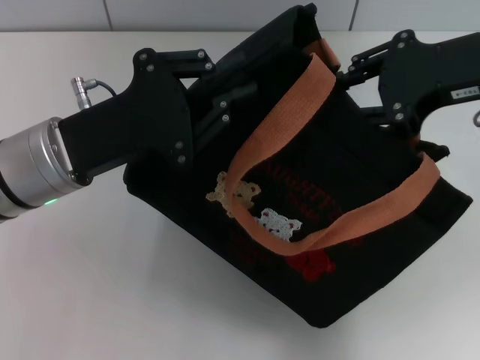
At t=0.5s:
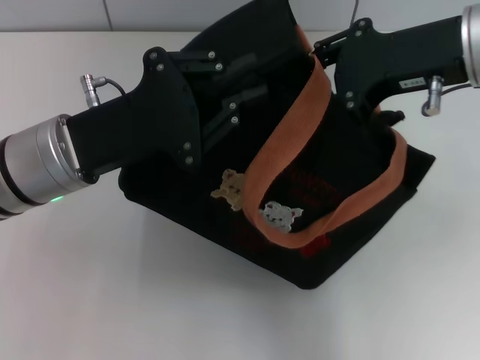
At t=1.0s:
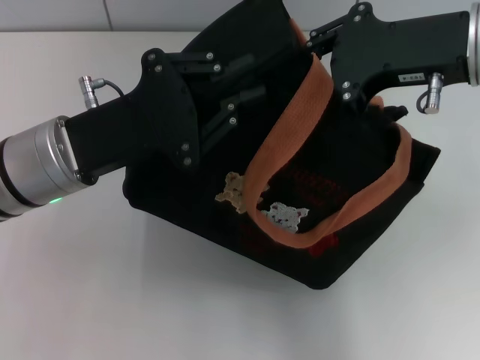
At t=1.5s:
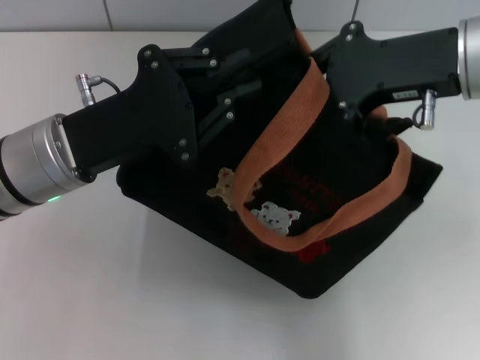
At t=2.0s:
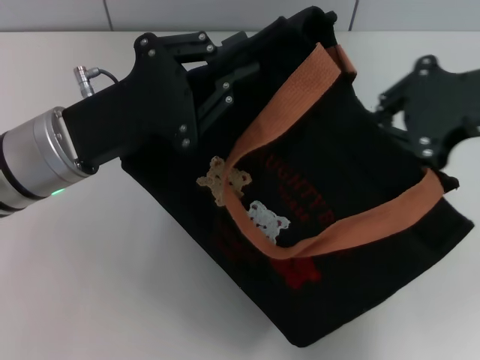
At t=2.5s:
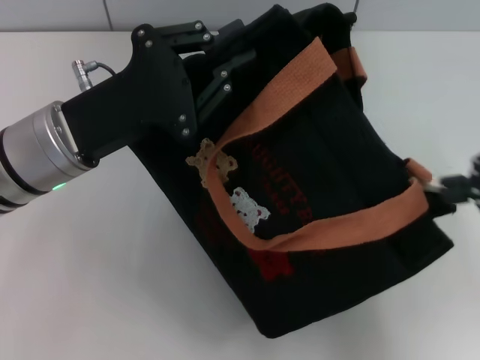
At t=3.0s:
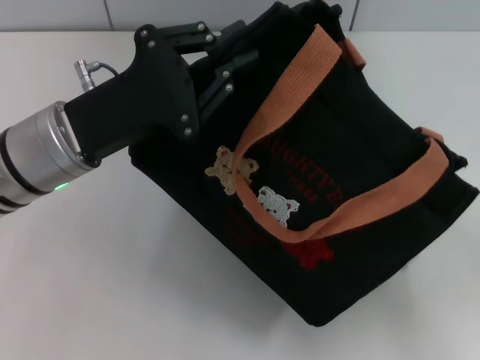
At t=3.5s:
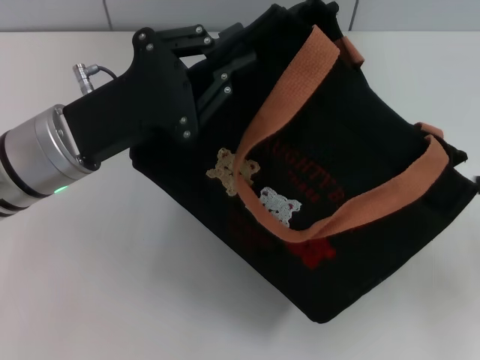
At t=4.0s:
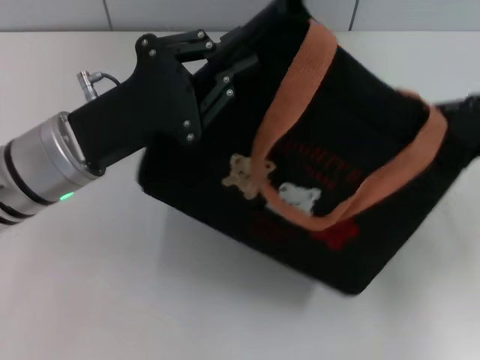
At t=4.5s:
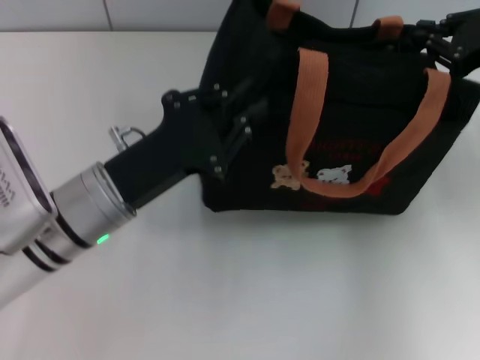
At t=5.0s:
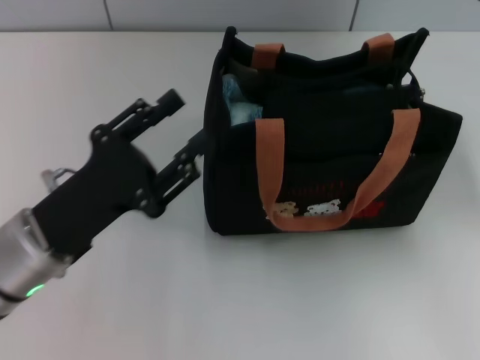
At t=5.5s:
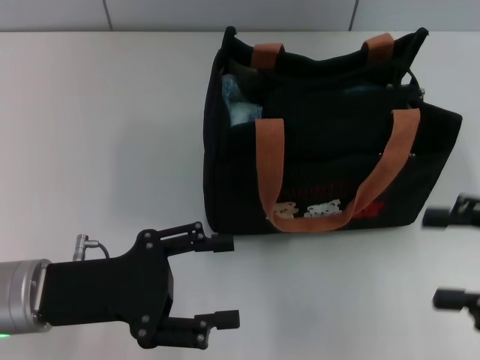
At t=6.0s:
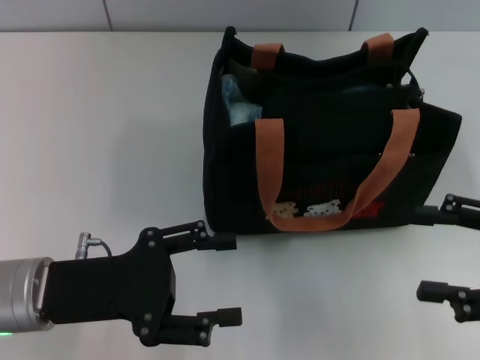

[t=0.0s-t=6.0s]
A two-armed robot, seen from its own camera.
Step, t=0.0s to t=3.0s: Pull open the zipper with your right hand.
Step, t=3.5s to t=5.0s: Grab the bag with your left hand.
t=0.0s to t=2.0s: The right gripper closes up.
t=2.0s to t=4.0s: The right gripper moves downward and to the right, some 10 cm, and opens its fingers.
t=4.0s to t=6.0s: The two grippers go some 10 cm backward. The left gripper opens; the right gripper closes and opens again.

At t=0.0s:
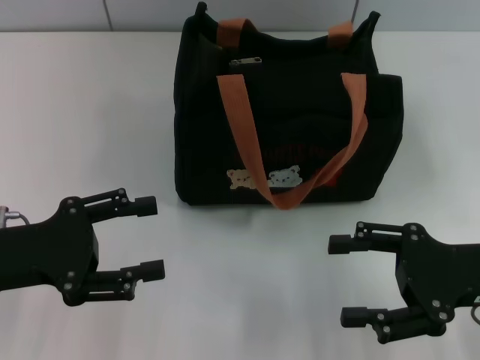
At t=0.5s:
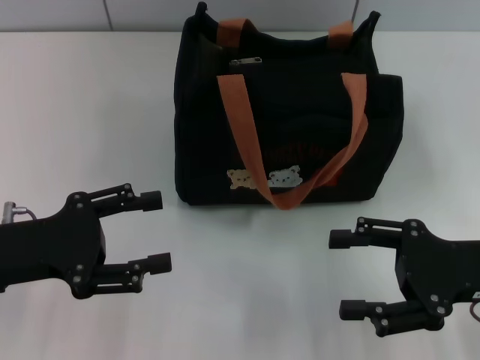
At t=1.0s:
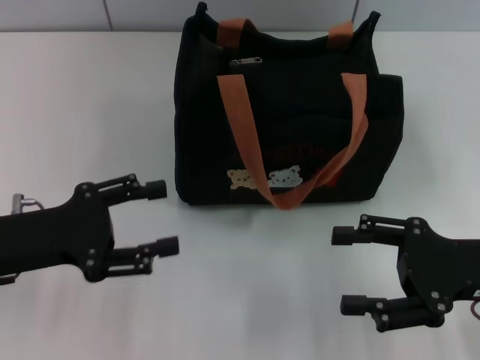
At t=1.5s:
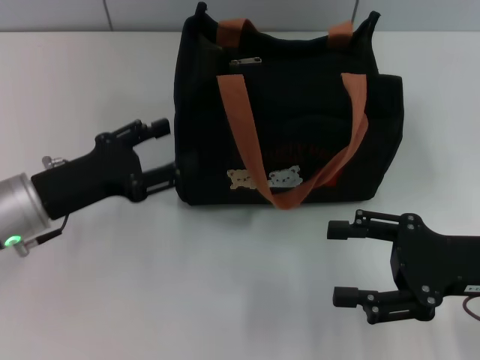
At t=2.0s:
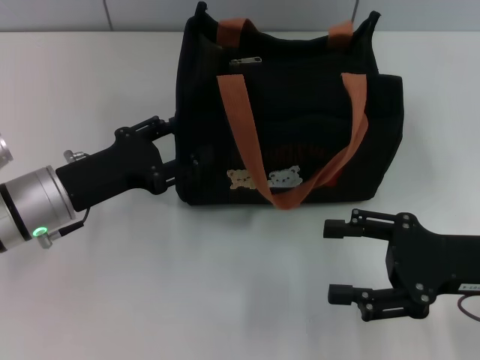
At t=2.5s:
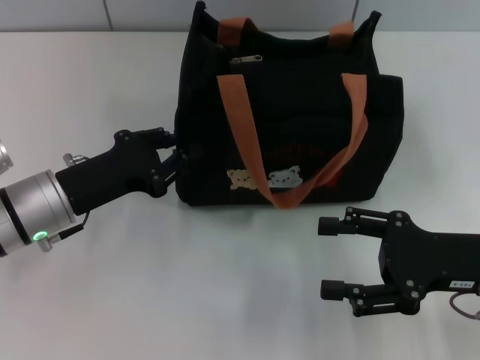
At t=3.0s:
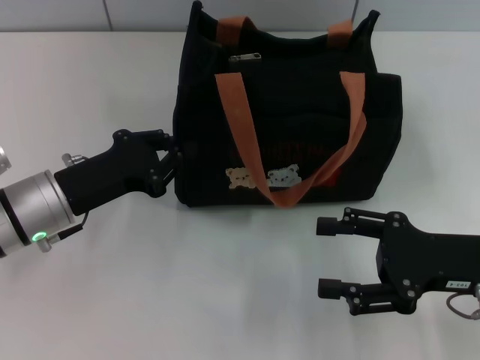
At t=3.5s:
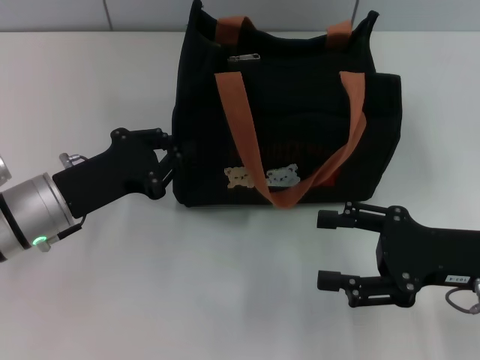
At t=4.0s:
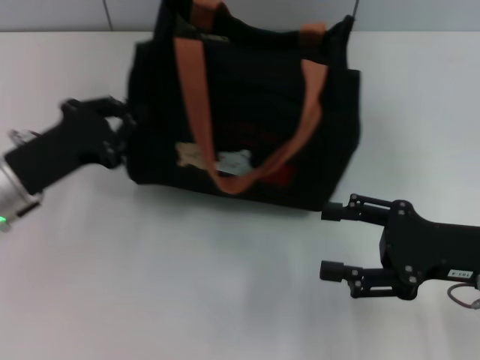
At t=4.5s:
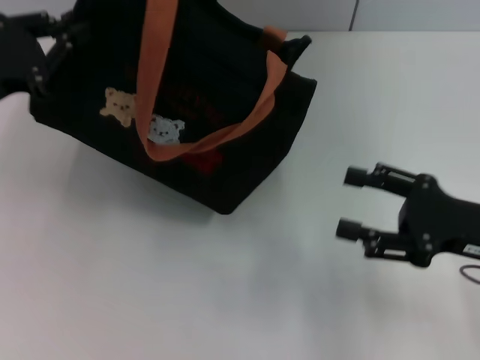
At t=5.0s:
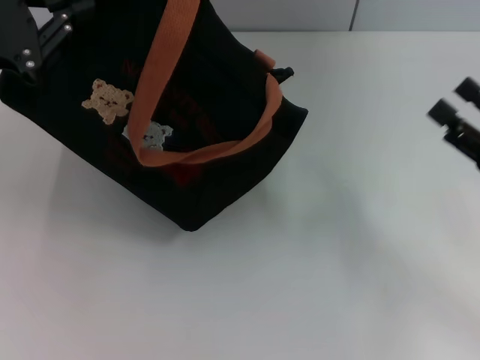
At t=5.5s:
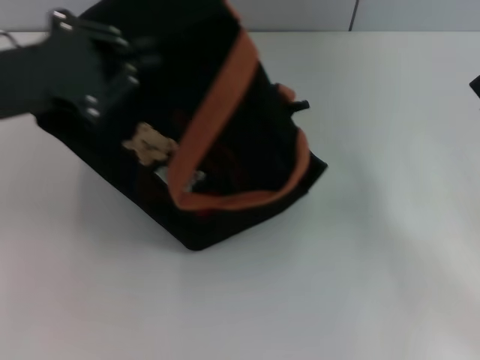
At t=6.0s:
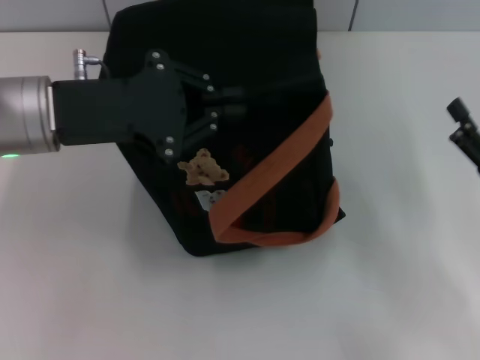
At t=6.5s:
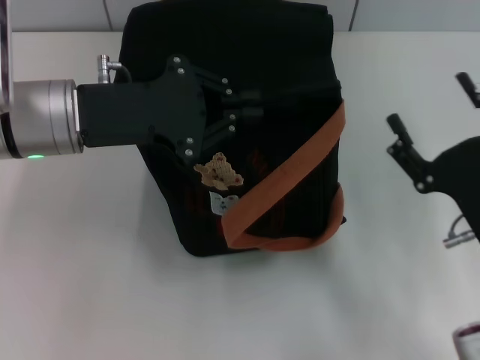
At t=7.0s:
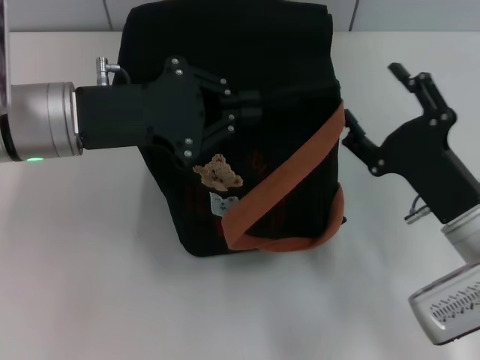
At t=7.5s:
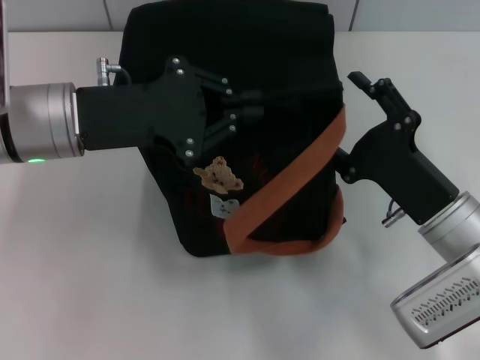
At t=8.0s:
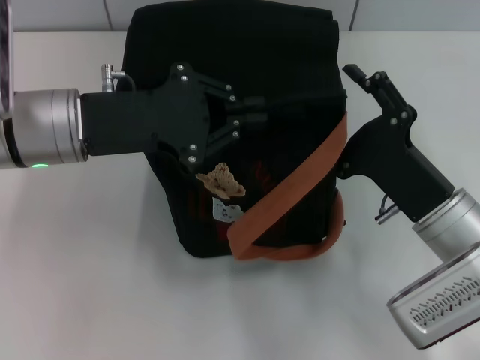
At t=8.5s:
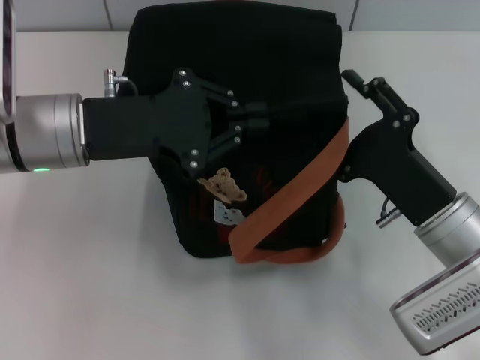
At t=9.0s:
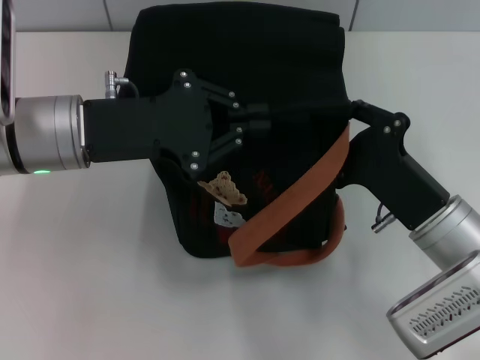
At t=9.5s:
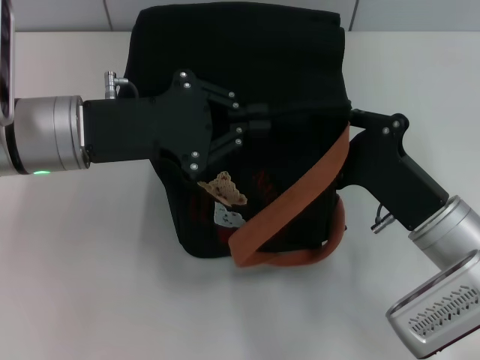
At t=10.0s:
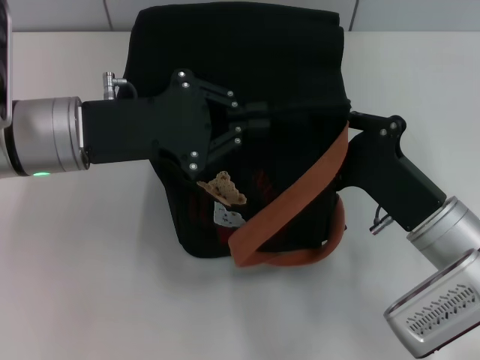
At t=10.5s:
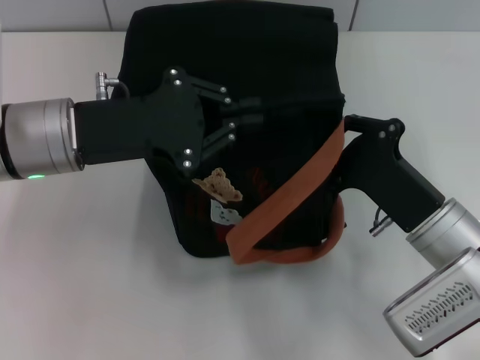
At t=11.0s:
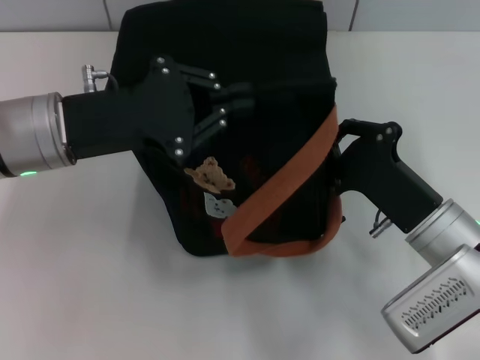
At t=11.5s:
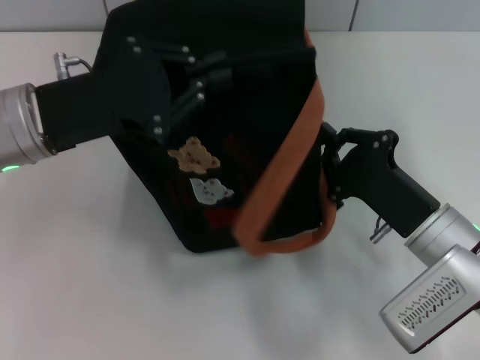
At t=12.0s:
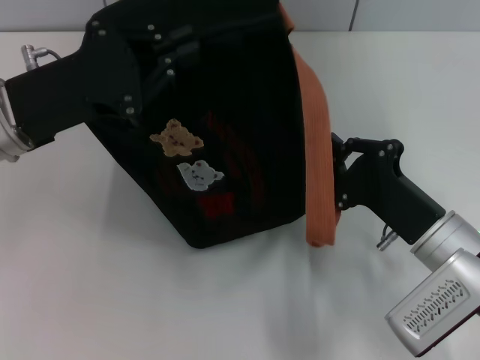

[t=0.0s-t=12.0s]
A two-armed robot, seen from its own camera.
t=0.0s to t=2.0s: The left gripper travels forward and to the right by approximately 10 cm.
t=2.0s to t=4.0s: The left gripper closes.
t=4.0s to t=6.0s: The left gripper is displaced upward and to the right by about 10 cm, while the right gripper ends up about 5 cm from where it was.
t=6.0s to t=8.0s: The right gripper moves to the left, roughly 10 cm.
t=8.0s to t=10.0s: The right gripper closes up.

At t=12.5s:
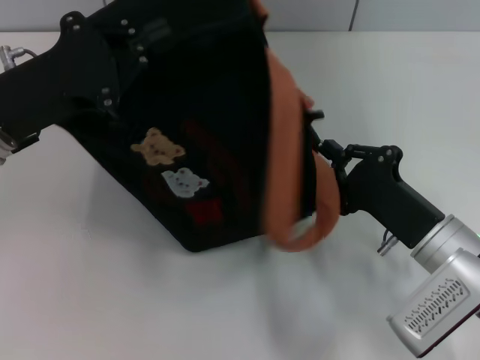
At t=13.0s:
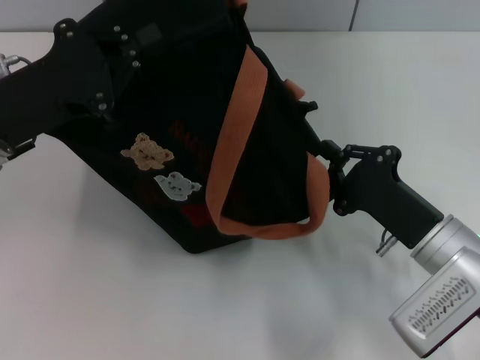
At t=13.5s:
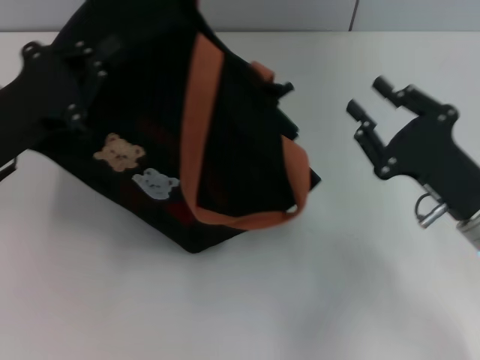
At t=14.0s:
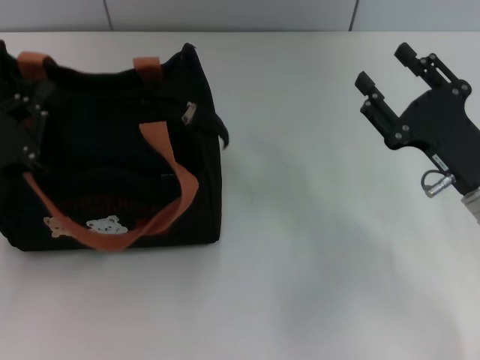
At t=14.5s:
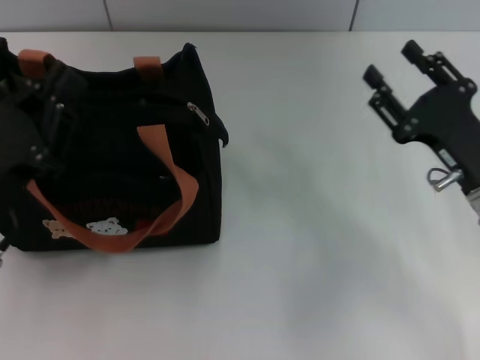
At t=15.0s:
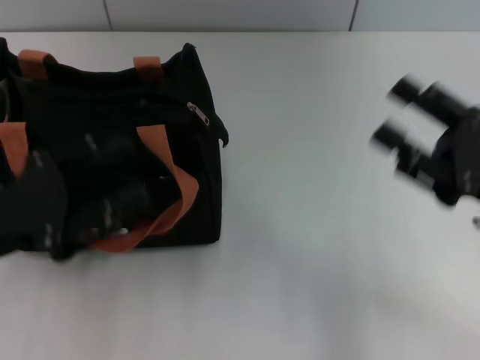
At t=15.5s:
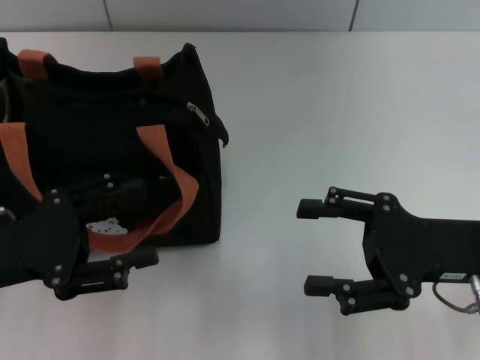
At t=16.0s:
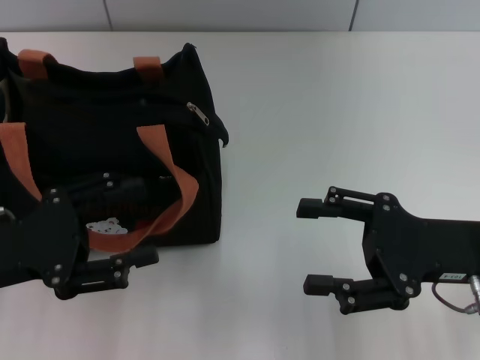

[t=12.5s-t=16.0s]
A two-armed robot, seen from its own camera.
Step, t=13.5s to t=14.5s: Grab the bag with your left hand.
t=12.5s to t=14.5s: The right gripper changes place by roughly 5 cm, and opens. The left gripper shifts some 10 cm backward and downward.
t=14.5s to t=16.0s: The left gripper opens up.

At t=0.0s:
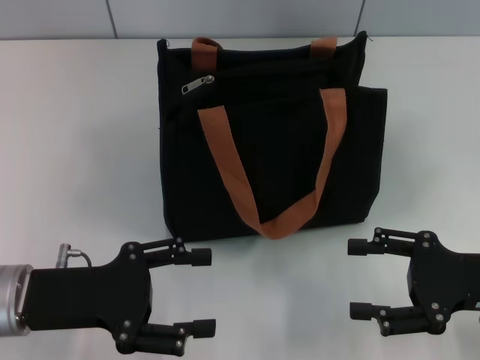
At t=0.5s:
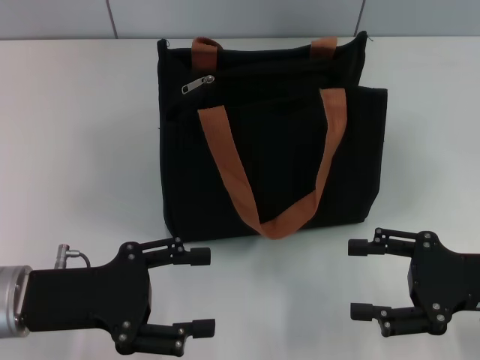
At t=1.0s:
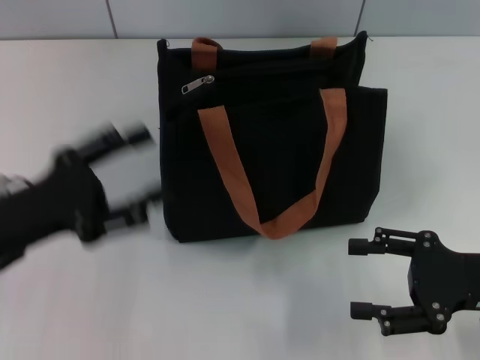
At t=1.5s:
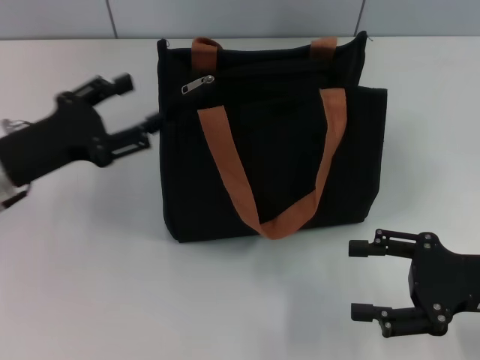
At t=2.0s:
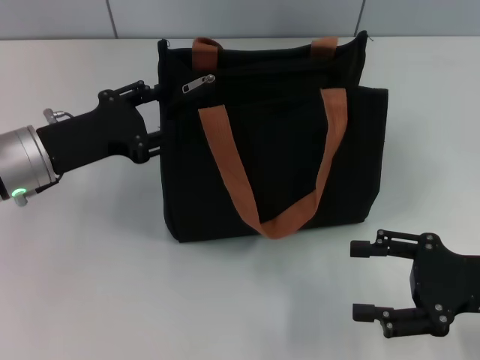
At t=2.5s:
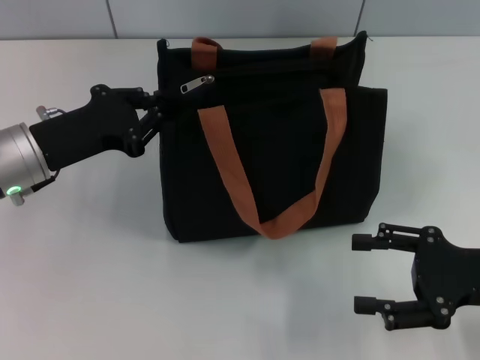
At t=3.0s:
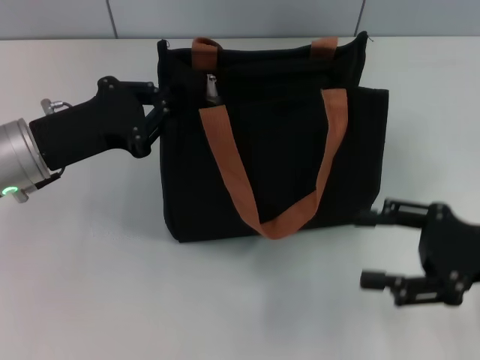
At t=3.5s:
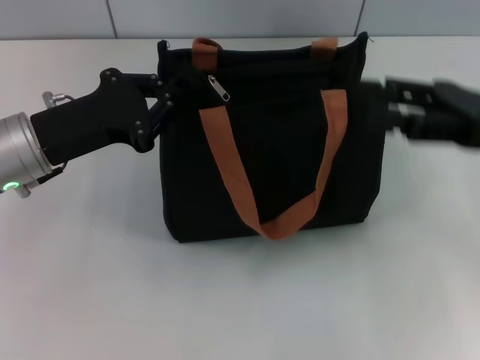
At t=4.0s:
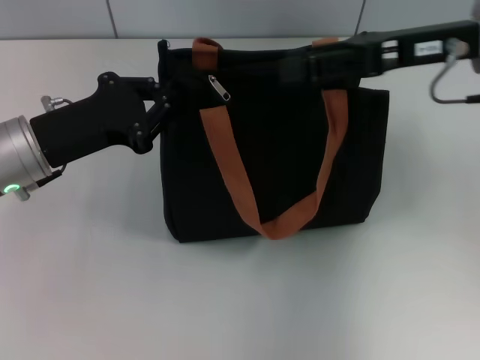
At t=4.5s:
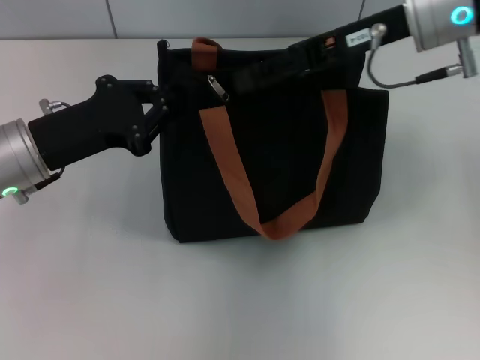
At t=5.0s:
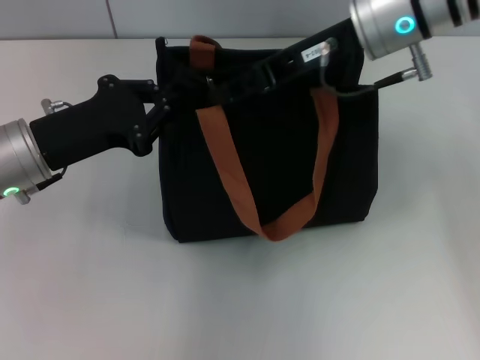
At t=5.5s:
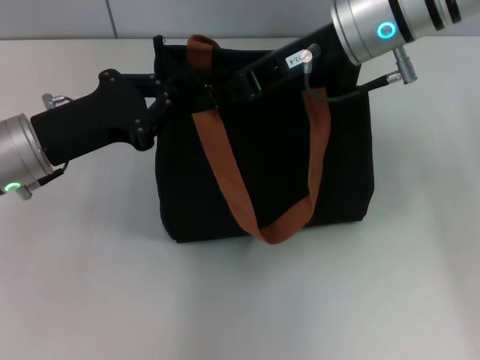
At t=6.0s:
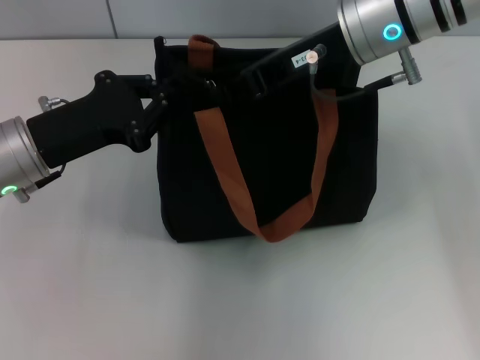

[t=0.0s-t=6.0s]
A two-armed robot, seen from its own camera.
t=0.0s to t=2.0s: The left gripper shifts some 10 cm forward.
t=2.0s to t=4.0s: The right gripper is displaced forward, upward and to the left by roughly 20 cm. The left gripper closes up.
t=4.0s to t=6.0s: The right gripper is displaced to the left by some 10 cm, and closes.
